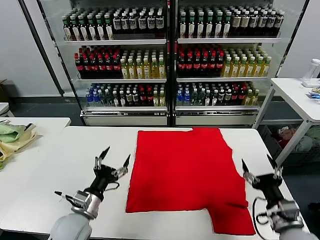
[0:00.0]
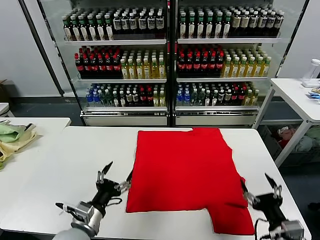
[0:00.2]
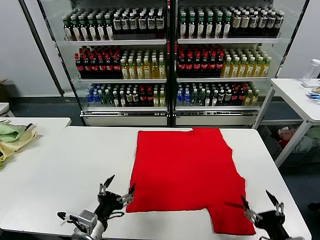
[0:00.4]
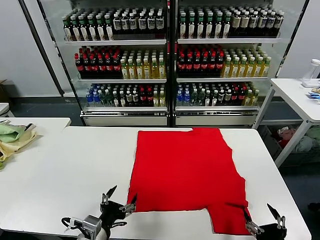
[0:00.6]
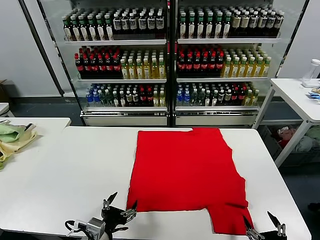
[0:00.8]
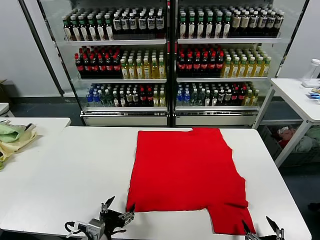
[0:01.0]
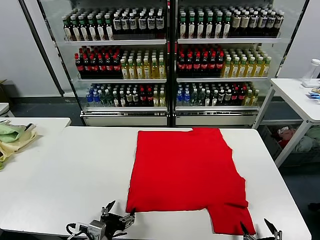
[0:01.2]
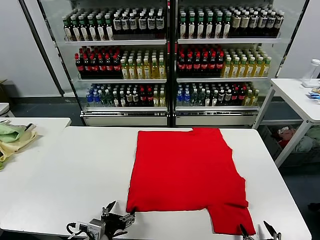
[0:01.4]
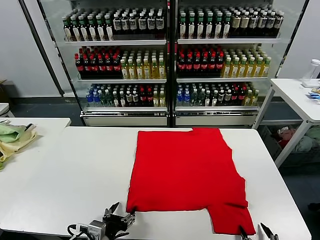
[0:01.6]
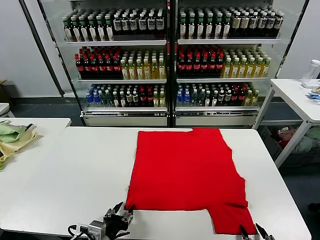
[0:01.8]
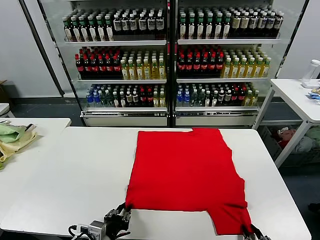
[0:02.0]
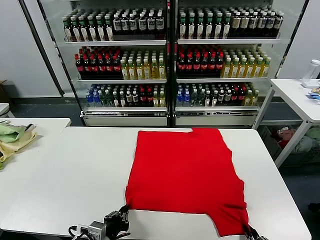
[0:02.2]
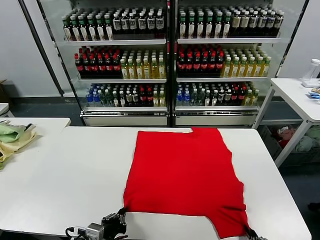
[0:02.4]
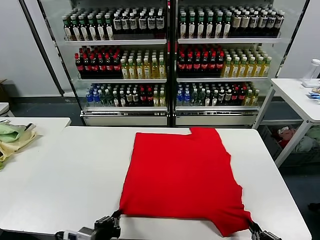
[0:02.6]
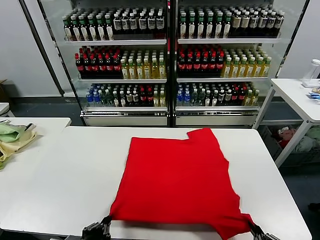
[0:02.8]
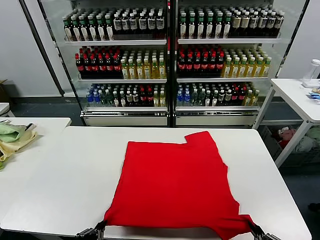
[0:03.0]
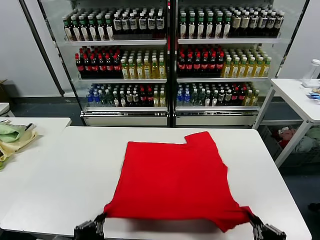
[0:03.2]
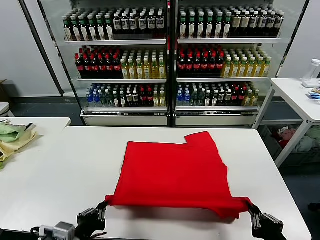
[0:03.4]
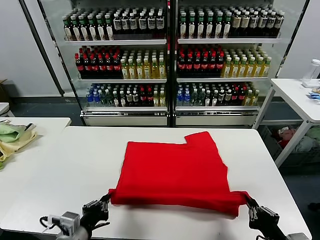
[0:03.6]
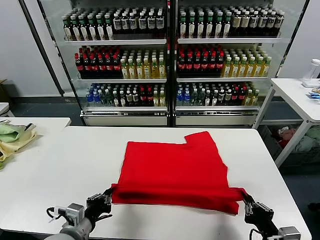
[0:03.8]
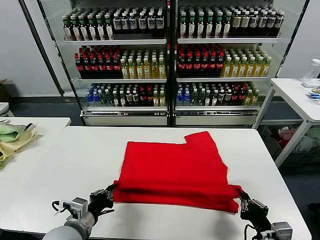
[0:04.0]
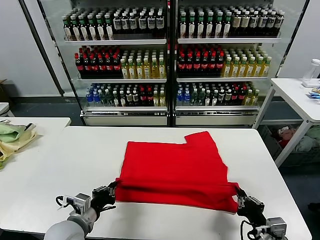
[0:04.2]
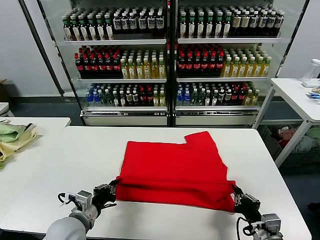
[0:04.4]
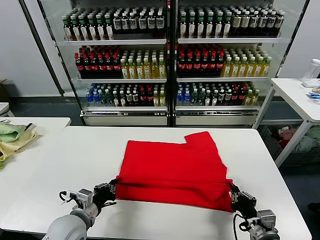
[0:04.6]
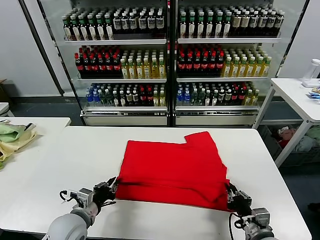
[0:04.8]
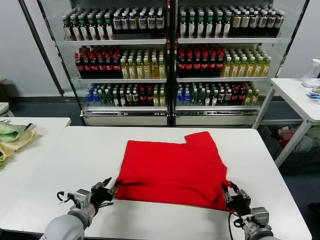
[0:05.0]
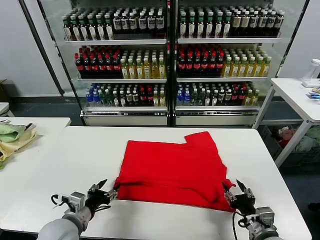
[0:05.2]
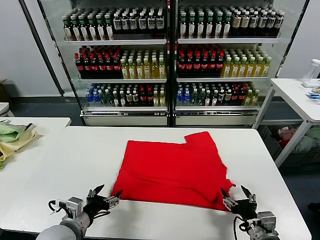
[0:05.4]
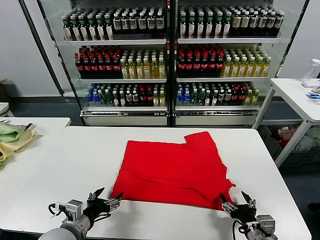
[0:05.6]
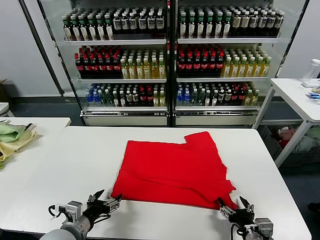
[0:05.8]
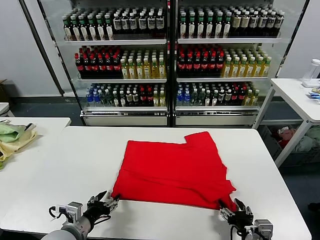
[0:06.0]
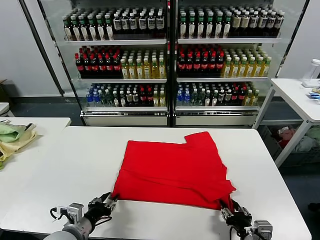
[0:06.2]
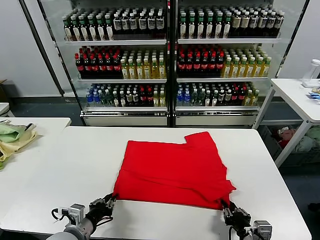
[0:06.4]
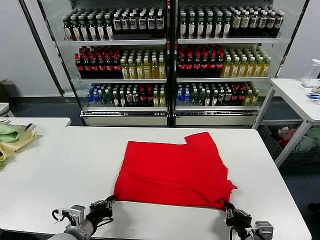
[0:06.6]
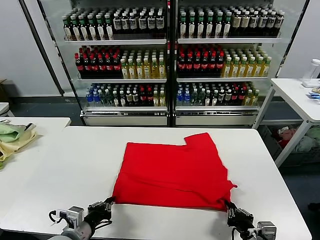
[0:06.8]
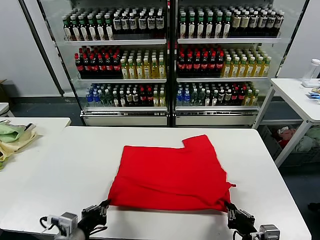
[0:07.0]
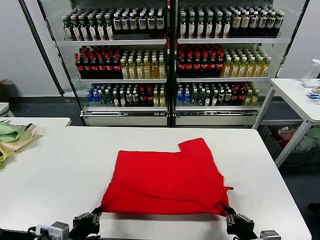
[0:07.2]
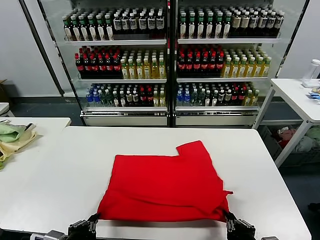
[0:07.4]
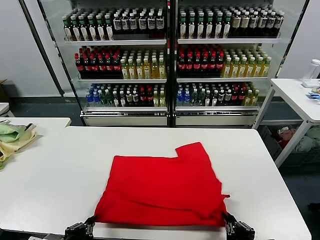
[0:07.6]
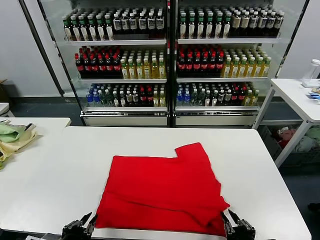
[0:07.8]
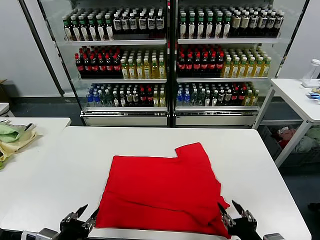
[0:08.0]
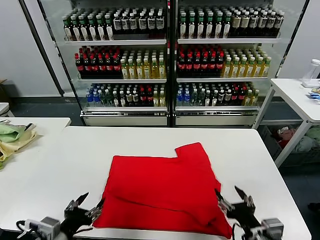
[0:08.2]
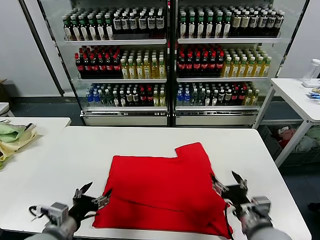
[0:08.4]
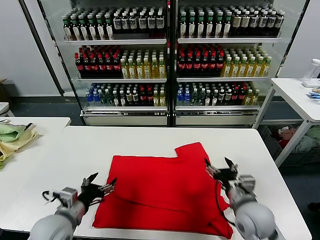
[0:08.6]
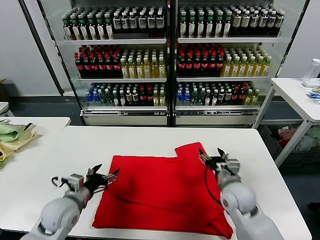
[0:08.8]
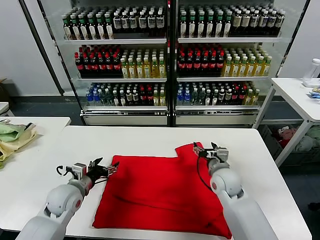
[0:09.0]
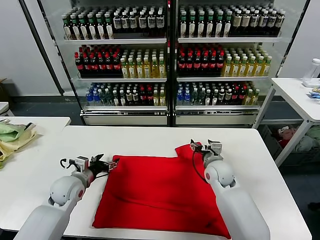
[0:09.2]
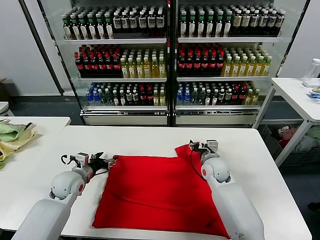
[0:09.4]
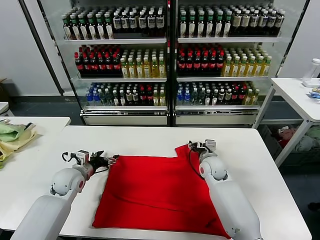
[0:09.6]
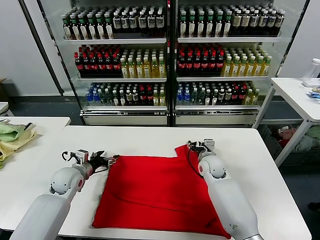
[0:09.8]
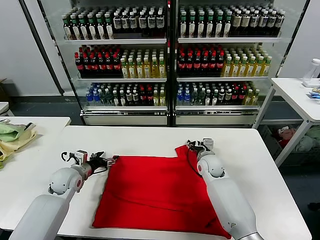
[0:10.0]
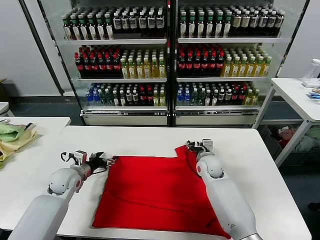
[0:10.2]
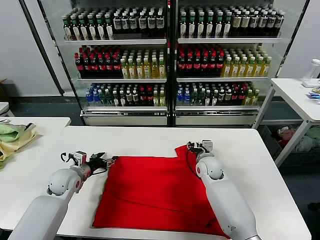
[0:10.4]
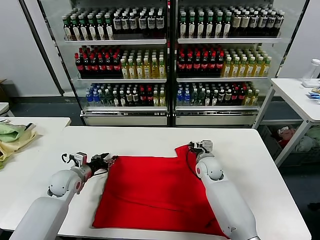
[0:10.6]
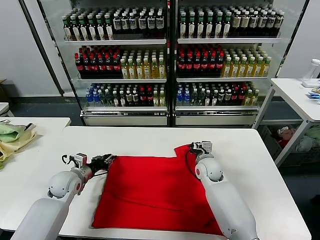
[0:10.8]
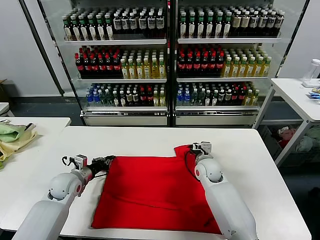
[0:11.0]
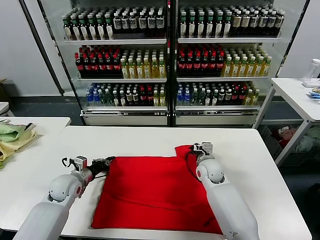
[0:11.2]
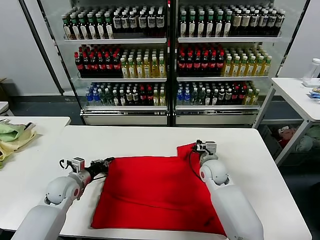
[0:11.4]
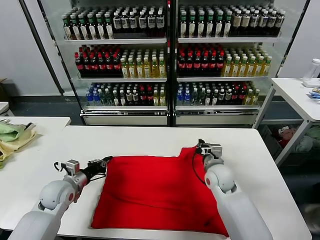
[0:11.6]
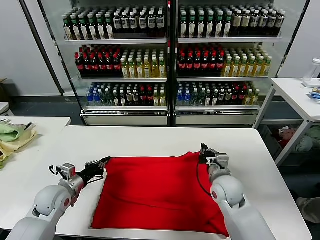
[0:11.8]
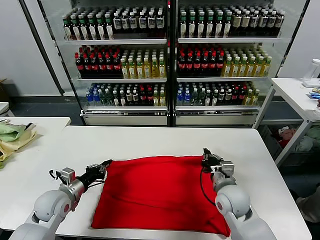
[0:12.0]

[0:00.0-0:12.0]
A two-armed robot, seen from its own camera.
Task of the whole recording: fold and organize the clothes.
Step, 0:00.0 to 0:02.2: use both grippers simultaneously to clamp the lower edge of the clothing fabric.
Step, 0:02.4 to 0:04.8: use both grippers to drag the lower edge of the fabric forward and fold it over the upper edge.
Step, 0:05.2 to 0:07.8: Drag the clothes downward with both gripper.
Step, 0:08.0 to 0:11.0: use both grippers simultaneously to clamp the upper edge of the clothing fabric.
0:01.6 to 0:03.0: The right gripper is displaced upward by roughly 10 cm, and closes; the left gripper is displaced upward and backward by roughly 10 cm, and closes its fingers.
0:03.0 to 0:04.4: The grippers both shift forward and downward by some 15 cm.
0:04.4 to 0:06.0: The left gripper opens up. The right gripper opens up.
0:06.0 to 0:07.6: The left gripper shifts roughly 10 cm backward, and closes its fingers. The right gripper goes approximately 5 cm backward.
0:07.6 to 0:09.0: Both grippers move forward, approximately 30 cm. The left gripper opens, while the right gripper opens.
0:09.0 to 0:10.4: The grippers both shift forward by about 5 cm.
0:10.4 to 0:12.0: The left gripper shifts approximately 10 cm backward, and closes its fingers, while the right gripper moves backward, some 15 cm, and closes its fingers.

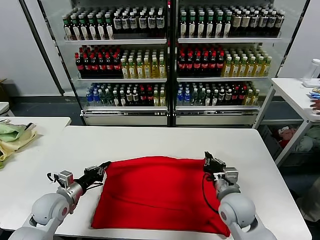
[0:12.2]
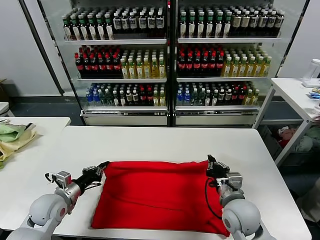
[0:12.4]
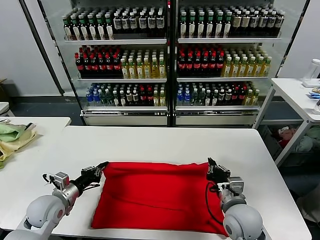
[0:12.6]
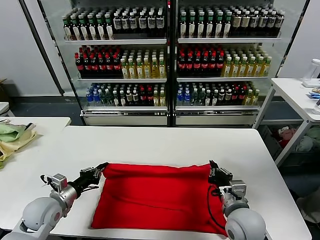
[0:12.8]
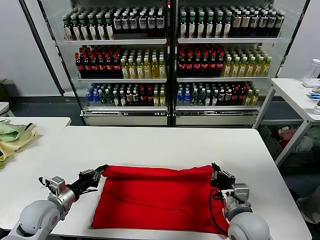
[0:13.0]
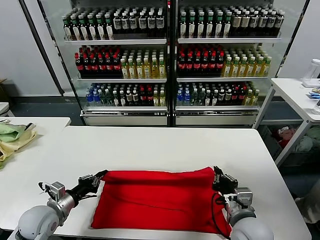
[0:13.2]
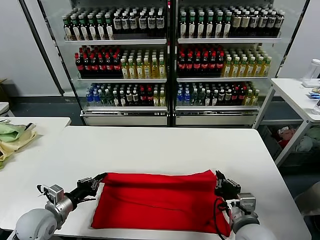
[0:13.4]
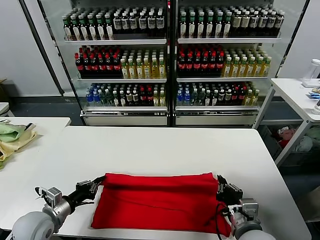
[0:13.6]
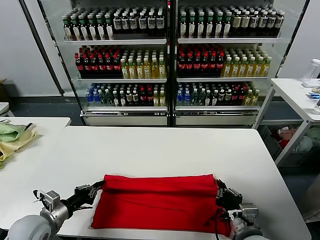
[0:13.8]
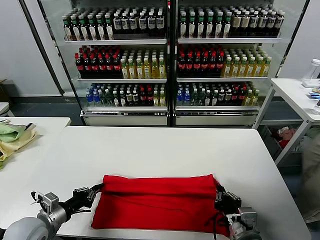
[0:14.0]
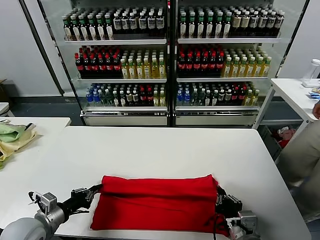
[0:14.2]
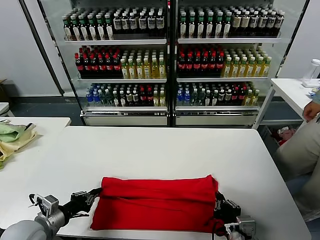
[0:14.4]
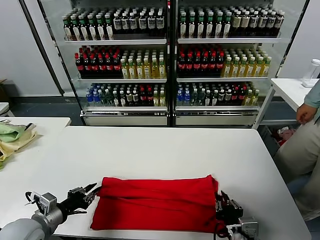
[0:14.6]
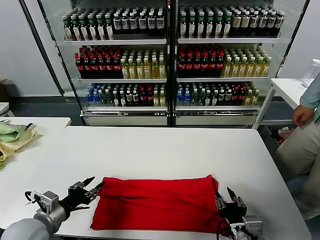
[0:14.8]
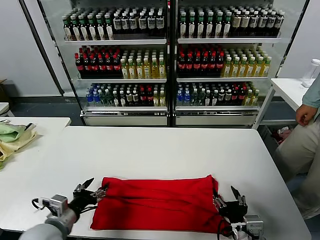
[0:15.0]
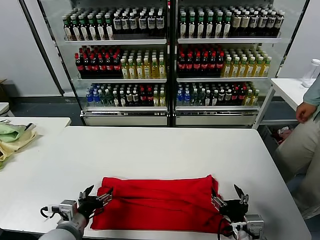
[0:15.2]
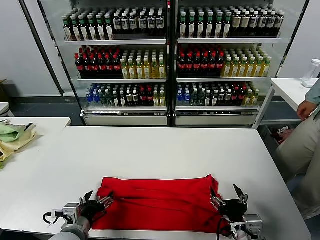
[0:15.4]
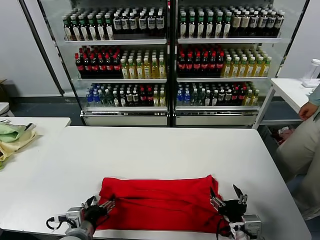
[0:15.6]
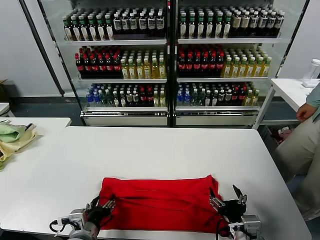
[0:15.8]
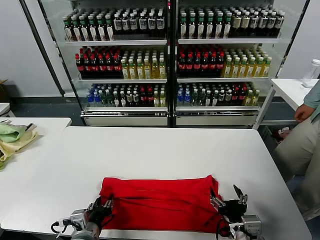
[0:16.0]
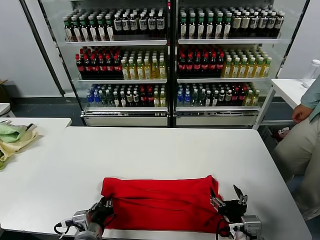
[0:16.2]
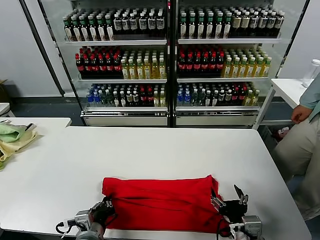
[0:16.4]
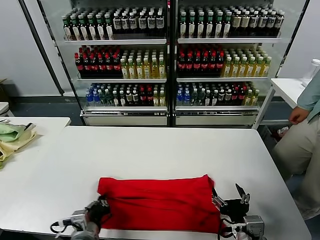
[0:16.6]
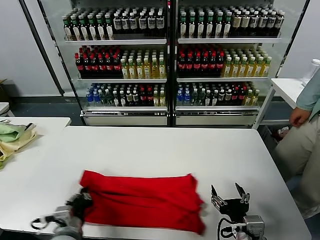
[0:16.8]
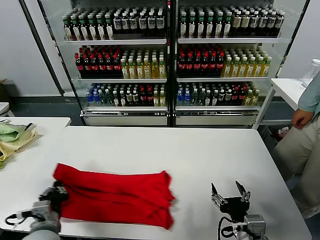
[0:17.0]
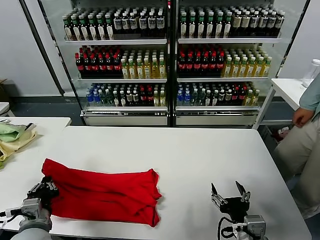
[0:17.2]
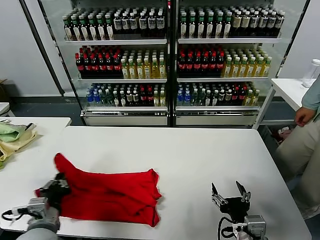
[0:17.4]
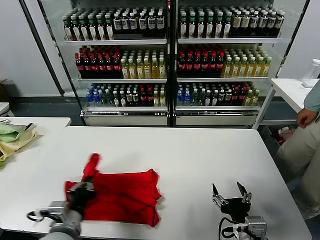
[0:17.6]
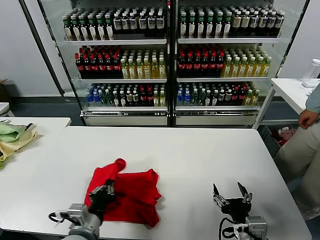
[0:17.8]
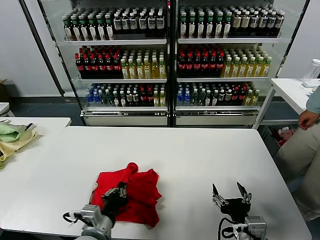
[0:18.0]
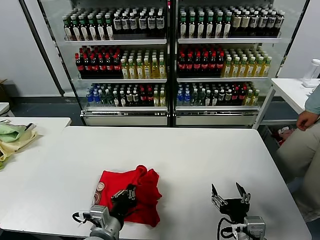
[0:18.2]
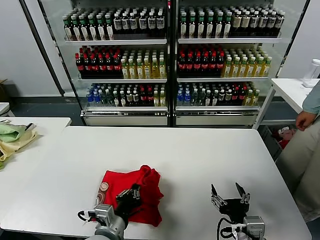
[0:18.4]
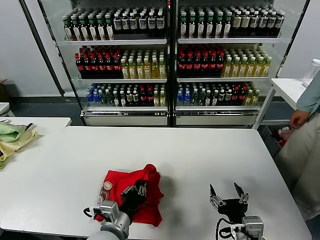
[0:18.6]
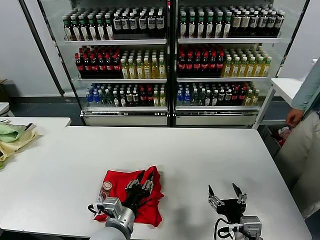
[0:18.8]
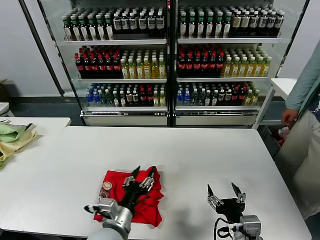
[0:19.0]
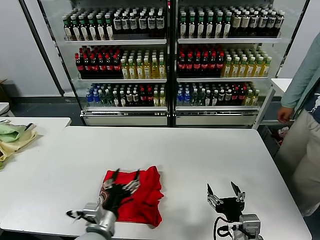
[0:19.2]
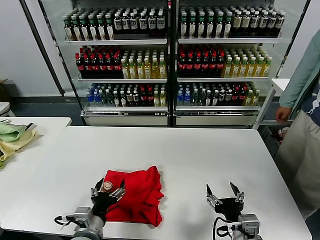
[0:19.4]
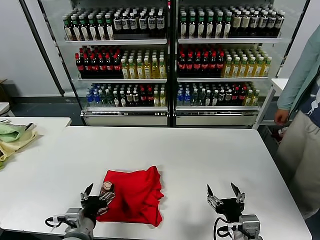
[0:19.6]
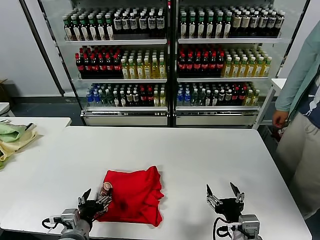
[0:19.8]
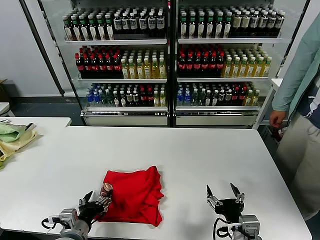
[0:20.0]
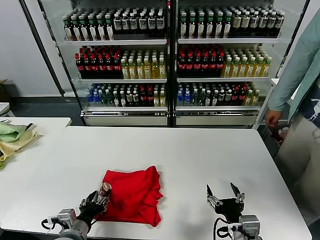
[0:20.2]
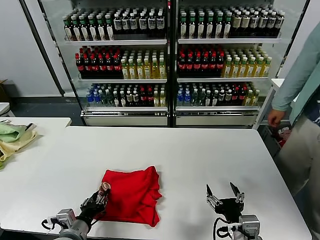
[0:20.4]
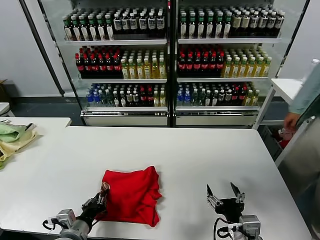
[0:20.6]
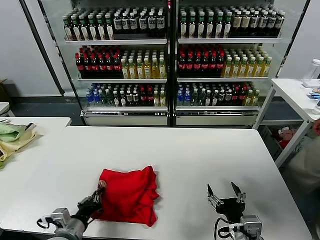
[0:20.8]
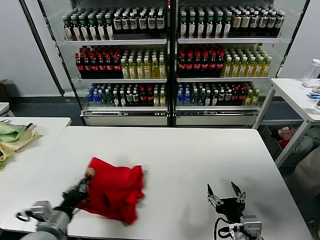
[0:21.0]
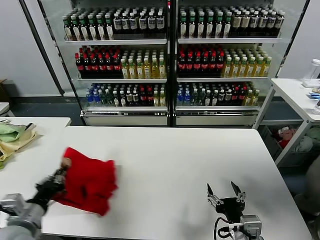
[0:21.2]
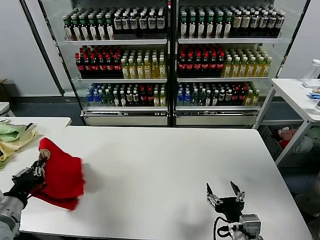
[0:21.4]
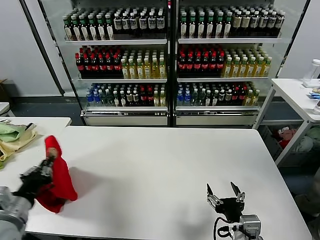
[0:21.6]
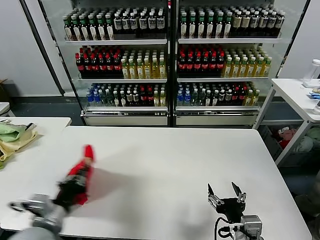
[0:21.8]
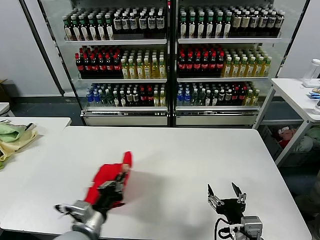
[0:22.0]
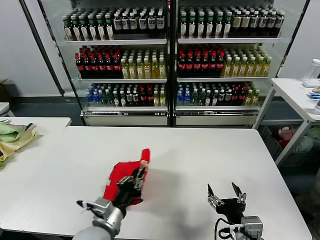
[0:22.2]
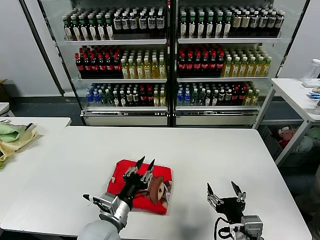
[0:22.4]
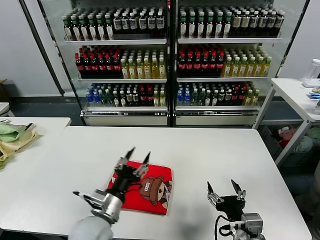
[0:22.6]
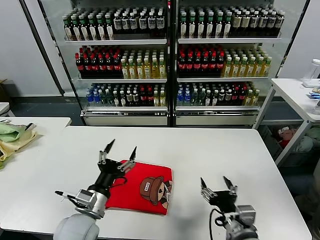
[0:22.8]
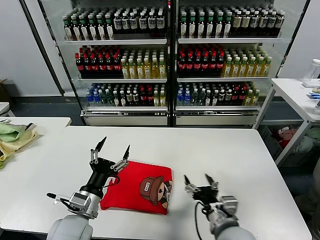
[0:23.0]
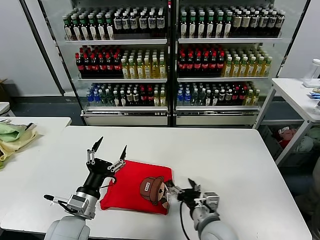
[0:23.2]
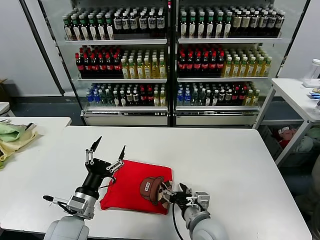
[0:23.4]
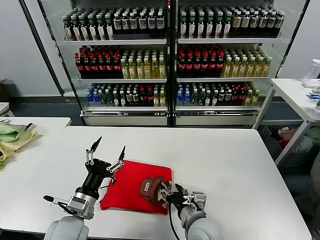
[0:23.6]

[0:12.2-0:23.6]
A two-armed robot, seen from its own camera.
Task of the whole recording: fold and organize the clothes.
Step, 0:12.2 to 0:14.6: use both grippers to drag the upper edge of the fabric backward and fold it over the lower edge.
Step, 0:14.8 to 0:16.2: use the left gripper to clamp the left edge of the fabric.
Step, 0:16.6 to 0:18.8: use the left gripper to drag the left edge of the fabric to the left and folds it over the right edge.
Step, 0:19.0 to 0:22.4: Flip the folded clothes over with left gripper.
0:12.2 to 0:13.6: The left gripper heads backward, covering roughly 5 cm; the right gripper travels backward by approximately 10 cm.
0:13.6 to 0:15.0: The right gripper opens its fingers, while the left gripper travels to the right by some 5 cm, and opens its fingers.
0:15.0 to 0:16.4: The left gripper shifts some 10 cm to the right, and closes up.
0:16.4 to 0:17.8: The left gripper goes approximately 5 cm upward, and moves approximately 10 cm to the left and comes back.
0:17.8 to 0:19.4: The left gripper travels to the right and back again, approximately 10 cm each way, and opens its fingers.
0:19.4 to 0:20.8: The left gripper travels to the left by about 5 cm, and closes.
0:20.8 to 0:22.2: The left gripper is displaced to the right and upward by approximately 10 cm.
0:22.2 to 0:23.6: The left gripper shifts approximately 5 cm to the left, and opens. Meanwhile the right gripper goes some 15 cm forward, to the left and downward.
